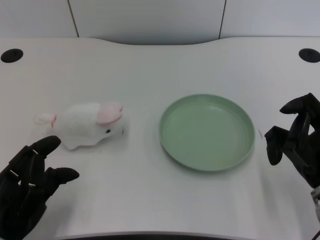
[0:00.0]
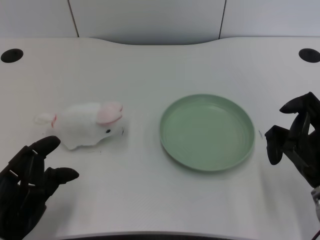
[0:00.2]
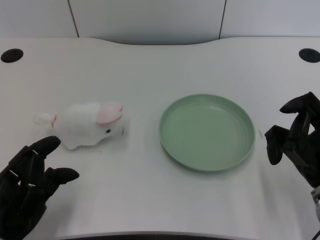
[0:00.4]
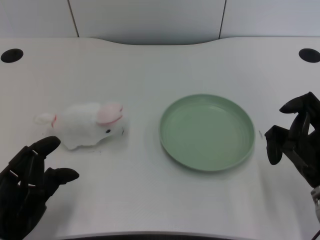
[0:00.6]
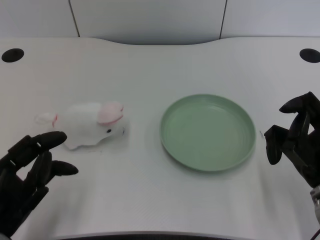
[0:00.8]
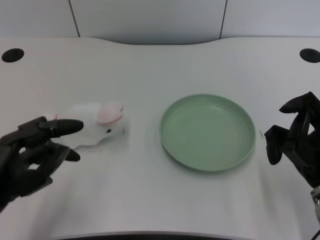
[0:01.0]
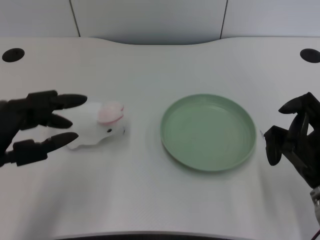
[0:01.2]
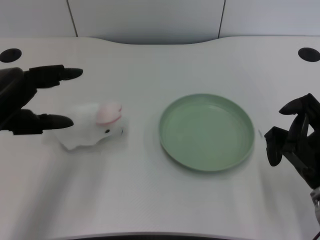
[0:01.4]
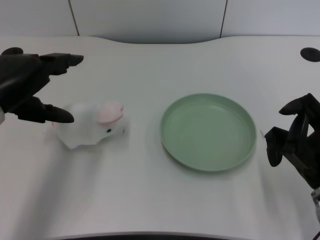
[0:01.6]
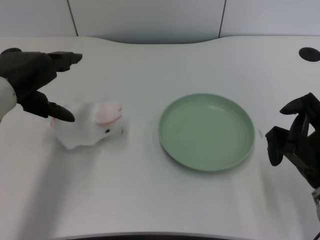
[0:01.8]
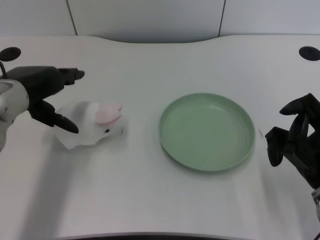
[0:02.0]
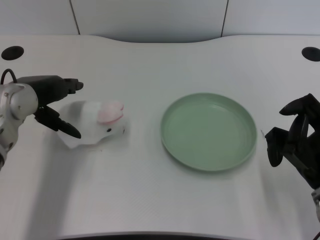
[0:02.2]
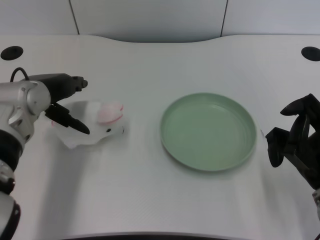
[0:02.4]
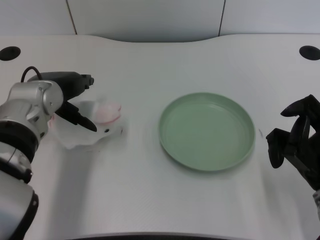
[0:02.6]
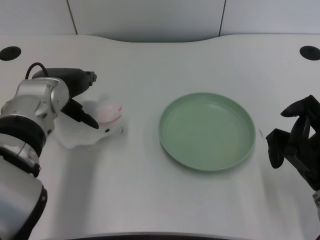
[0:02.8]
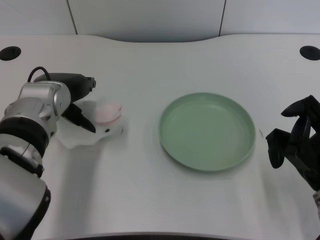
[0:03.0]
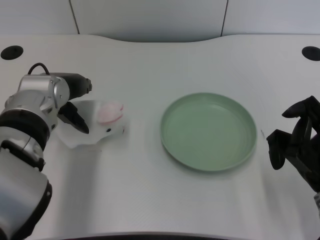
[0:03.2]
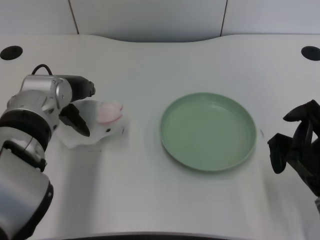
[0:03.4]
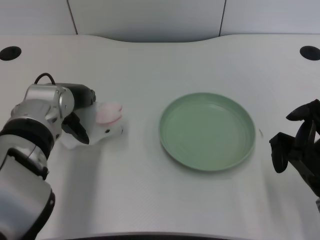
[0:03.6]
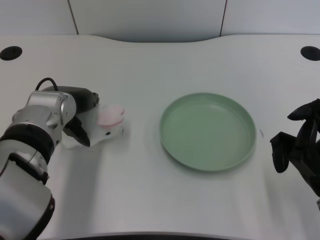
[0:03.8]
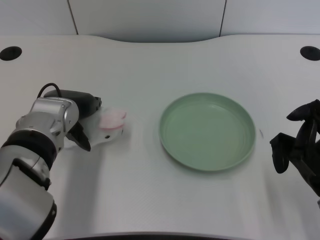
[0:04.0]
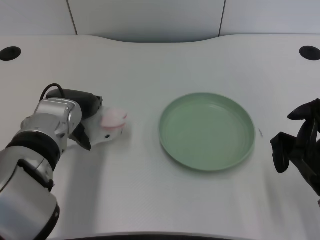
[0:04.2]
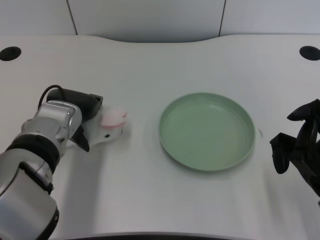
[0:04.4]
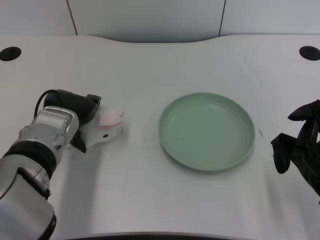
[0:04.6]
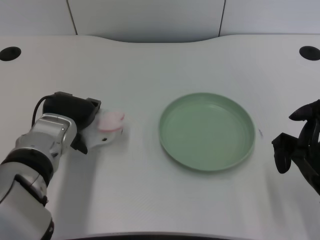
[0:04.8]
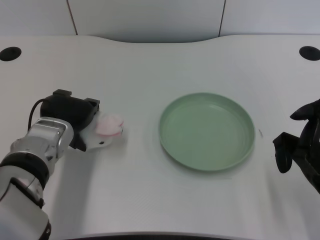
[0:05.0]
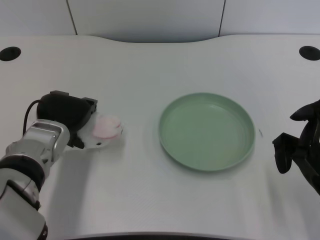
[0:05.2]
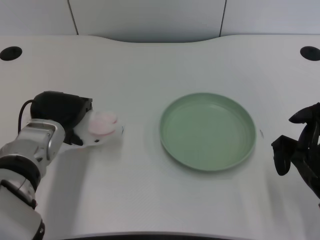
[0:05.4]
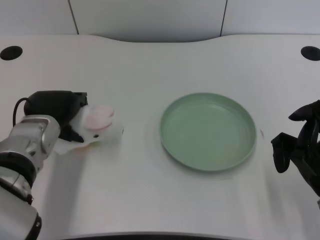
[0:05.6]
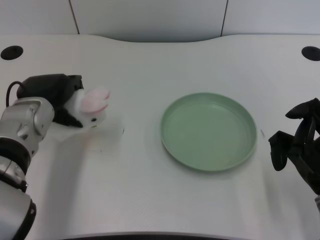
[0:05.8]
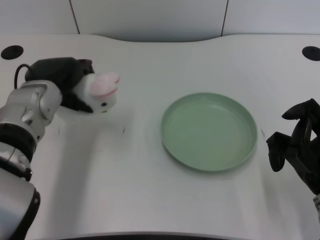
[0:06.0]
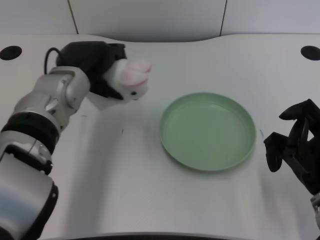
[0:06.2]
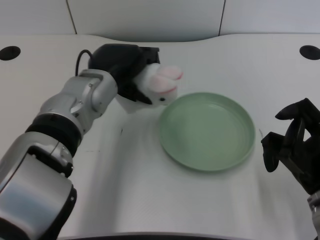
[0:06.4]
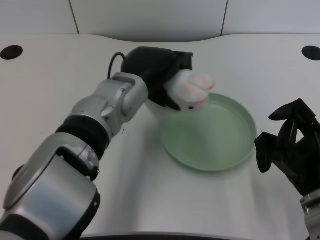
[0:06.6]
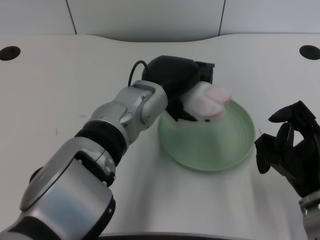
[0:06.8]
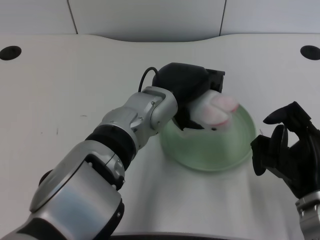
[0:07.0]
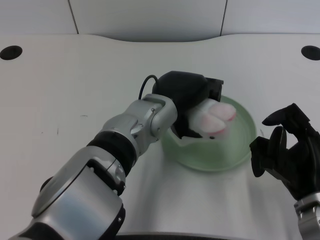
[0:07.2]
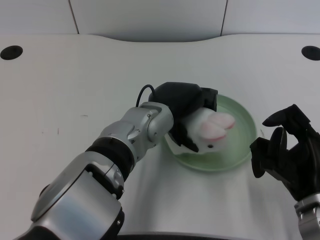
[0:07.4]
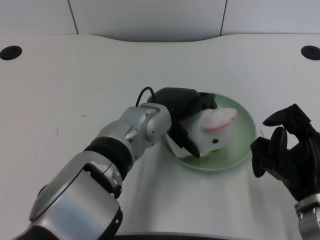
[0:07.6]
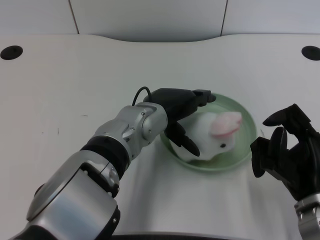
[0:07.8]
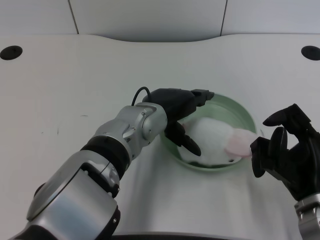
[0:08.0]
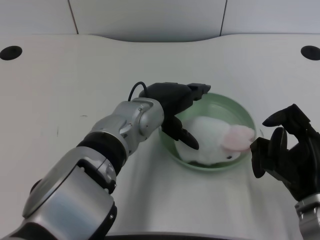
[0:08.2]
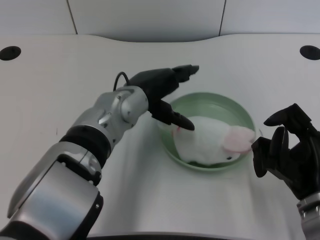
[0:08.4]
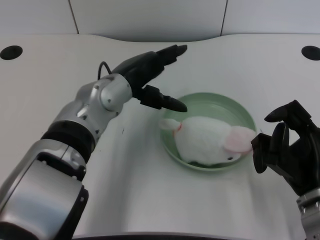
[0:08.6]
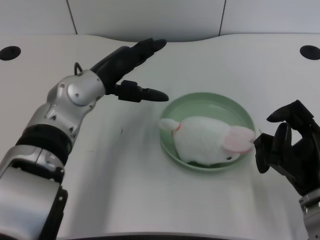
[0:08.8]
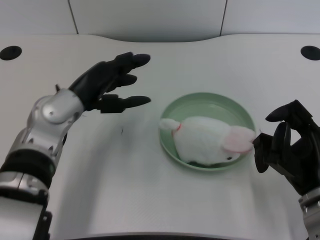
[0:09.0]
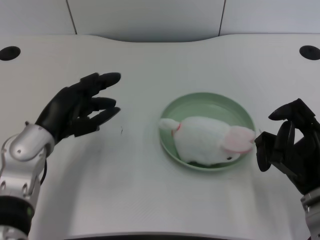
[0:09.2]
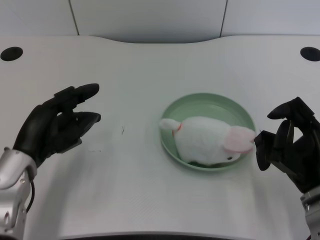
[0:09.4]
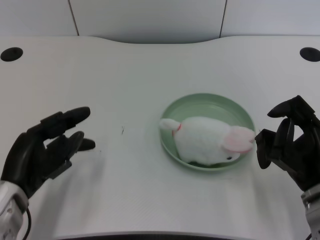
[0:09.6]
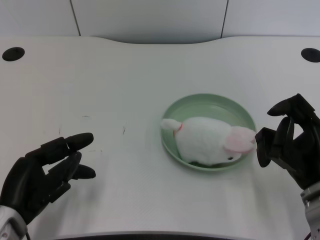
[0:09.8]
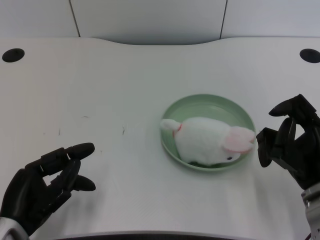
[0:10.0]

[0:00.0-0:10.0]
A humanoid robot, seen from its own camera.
Task of the whole recording: pick up the rabbit doll from the table and place it on the plate.
Step, 0.8 to 5.8 s: Grasp the rabbit doll with the left gripper.
Step, 6.0 to 8.0 s: Place the rabbit doll into the plate with the left gripper.
1.4 to 2.8 s: The left hand travels forward and to the right by some 15 cm.
2.8 to 4.2 s: The hands stay close to where they were, moving slightly.
5.8 to 7.2 s: The left hand heads to the right, covering about 15 cm.
7.2 to 8.6 s: The left hand is displaced to the left by about 5 cm.
8.6 to 10.0 s: The left hand is displaced backward, to the left and downward by about 25 cm.

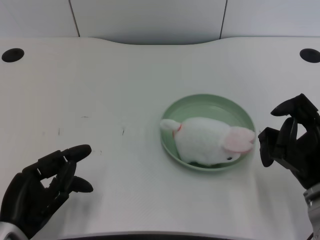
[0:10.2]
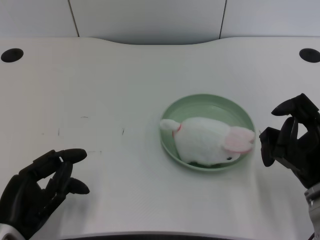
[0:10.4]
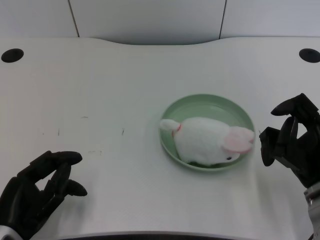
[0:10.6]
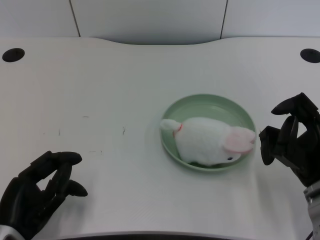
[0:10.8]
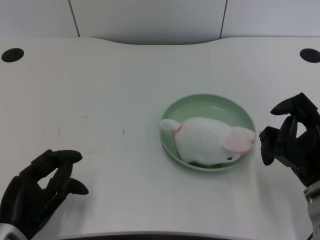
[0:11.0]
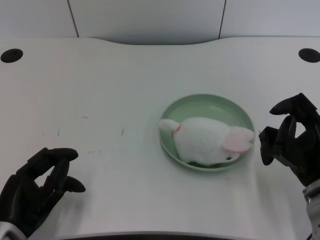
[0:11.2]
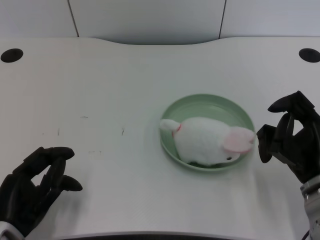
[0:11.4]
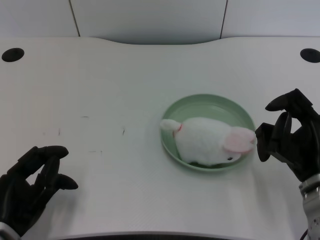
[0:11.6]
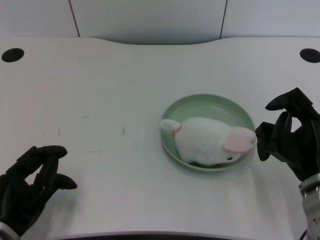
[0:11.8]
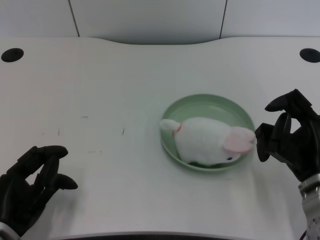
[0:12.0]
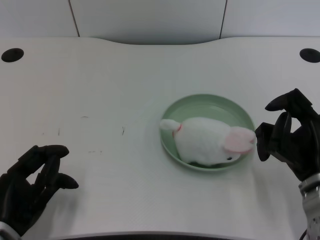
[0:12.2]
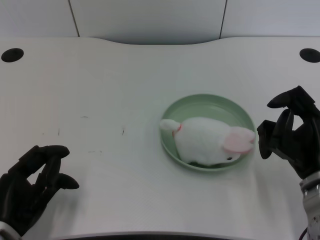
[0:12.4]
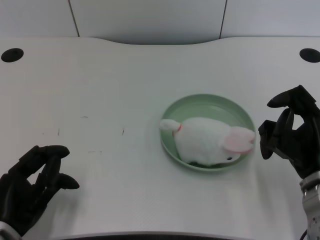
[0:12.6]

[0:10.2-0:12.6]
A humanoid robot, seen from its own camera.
Task of the whole recording: pick up the rabbit doll from the table and place it on the plate.
10.2 to 12.6 s: There are only small adjustments of the hands.

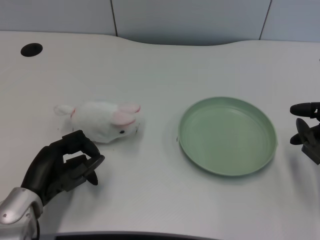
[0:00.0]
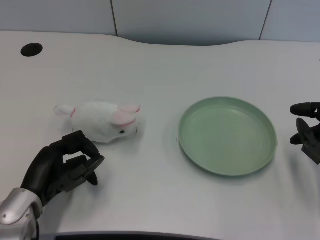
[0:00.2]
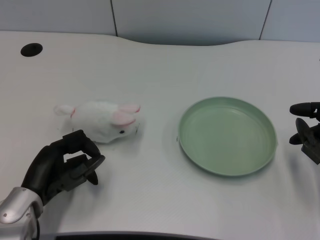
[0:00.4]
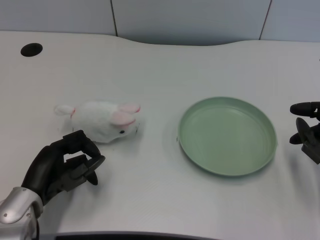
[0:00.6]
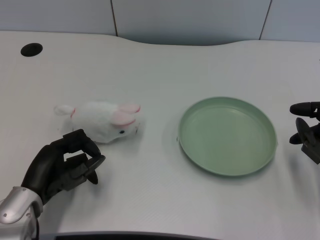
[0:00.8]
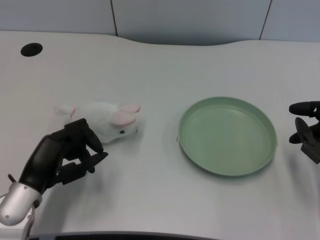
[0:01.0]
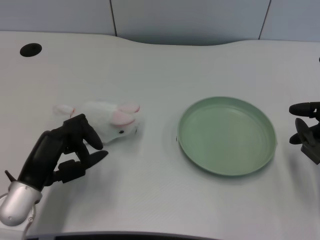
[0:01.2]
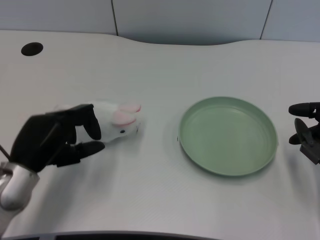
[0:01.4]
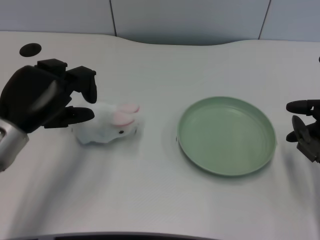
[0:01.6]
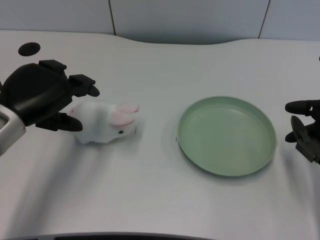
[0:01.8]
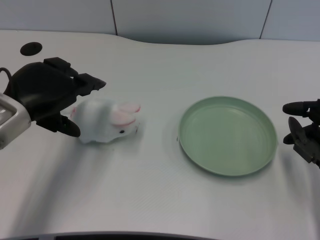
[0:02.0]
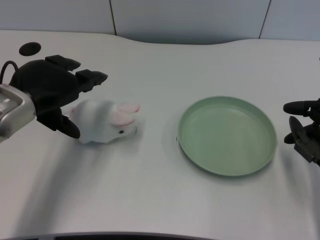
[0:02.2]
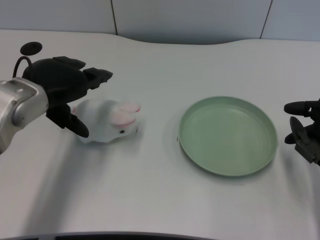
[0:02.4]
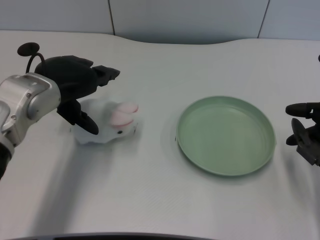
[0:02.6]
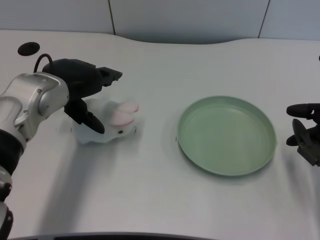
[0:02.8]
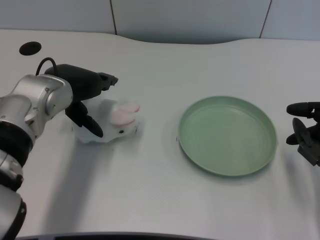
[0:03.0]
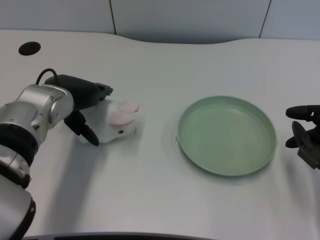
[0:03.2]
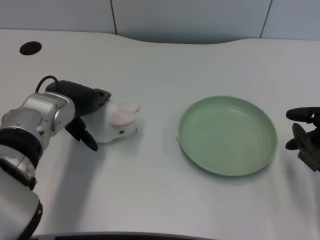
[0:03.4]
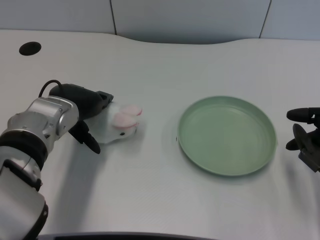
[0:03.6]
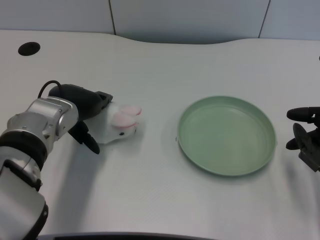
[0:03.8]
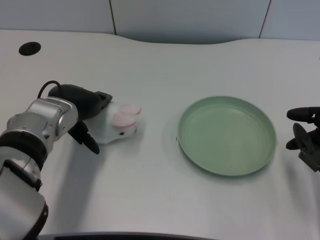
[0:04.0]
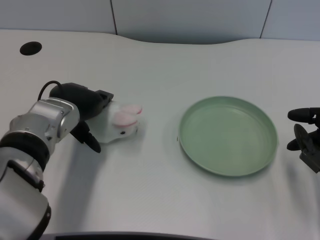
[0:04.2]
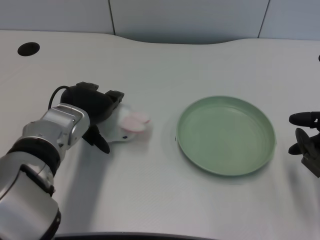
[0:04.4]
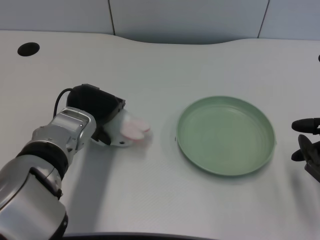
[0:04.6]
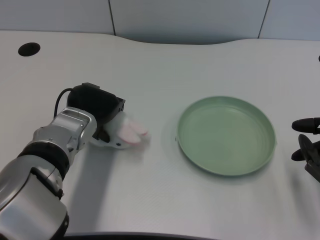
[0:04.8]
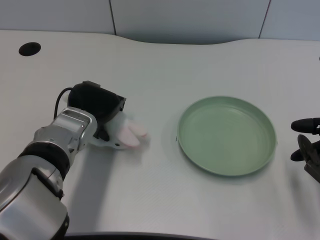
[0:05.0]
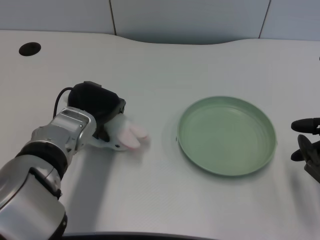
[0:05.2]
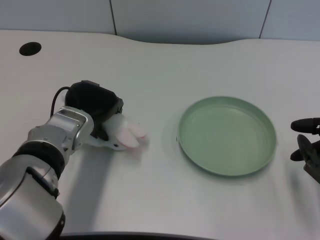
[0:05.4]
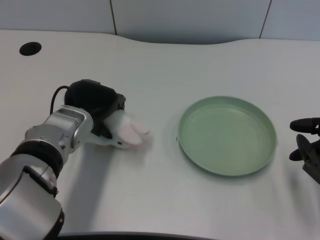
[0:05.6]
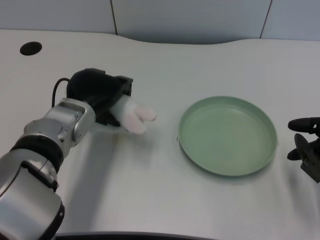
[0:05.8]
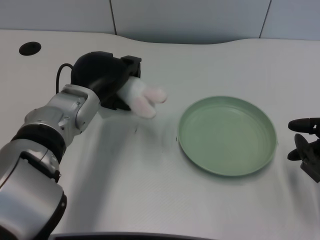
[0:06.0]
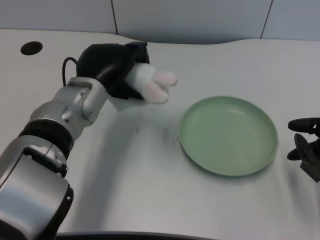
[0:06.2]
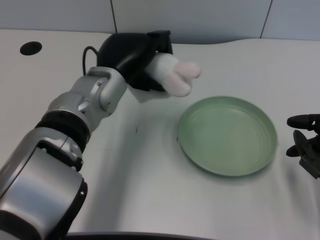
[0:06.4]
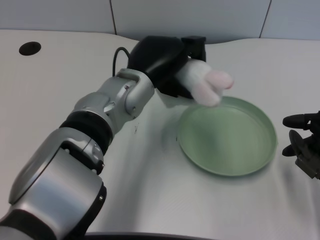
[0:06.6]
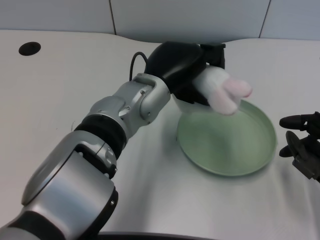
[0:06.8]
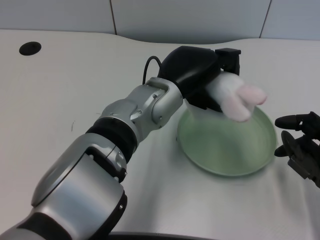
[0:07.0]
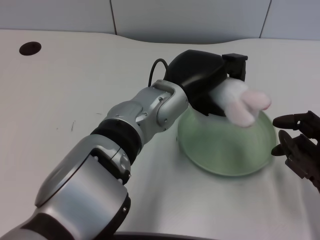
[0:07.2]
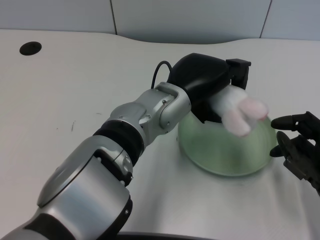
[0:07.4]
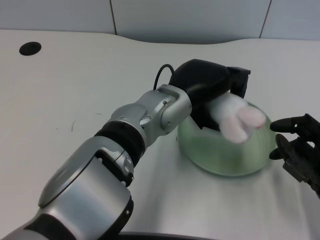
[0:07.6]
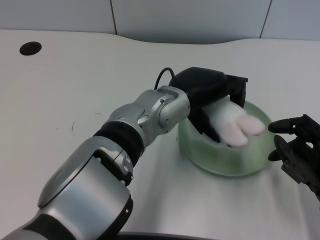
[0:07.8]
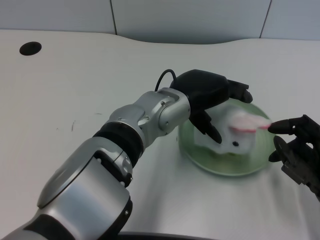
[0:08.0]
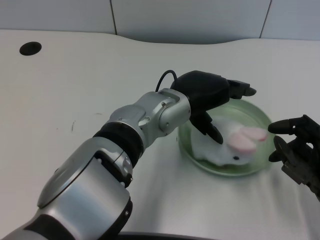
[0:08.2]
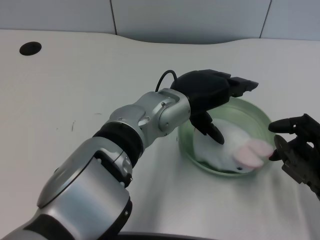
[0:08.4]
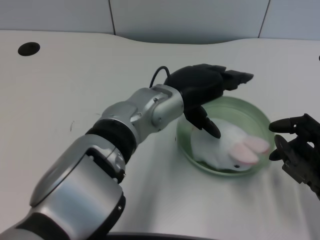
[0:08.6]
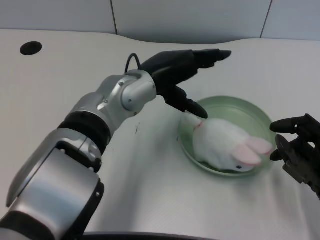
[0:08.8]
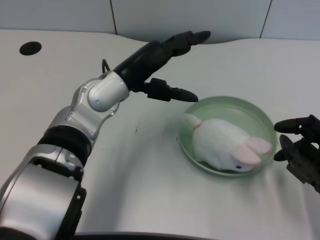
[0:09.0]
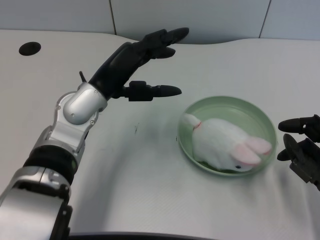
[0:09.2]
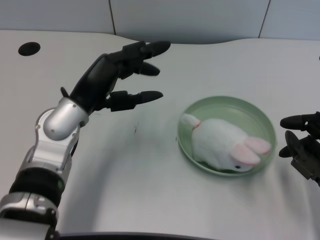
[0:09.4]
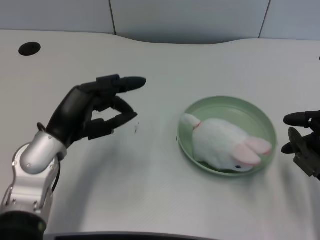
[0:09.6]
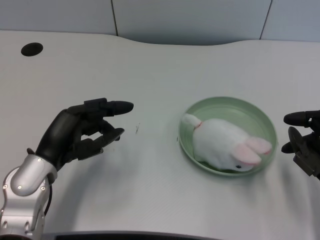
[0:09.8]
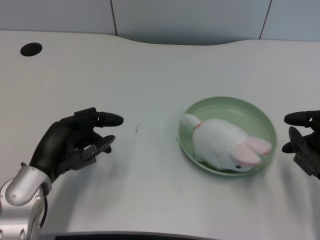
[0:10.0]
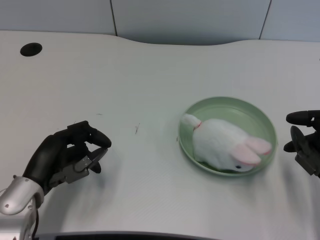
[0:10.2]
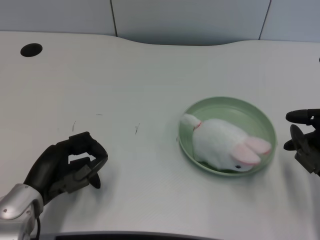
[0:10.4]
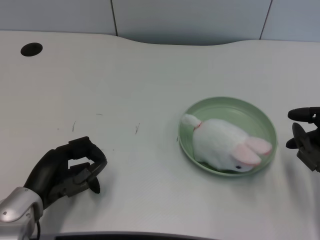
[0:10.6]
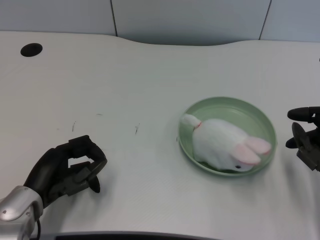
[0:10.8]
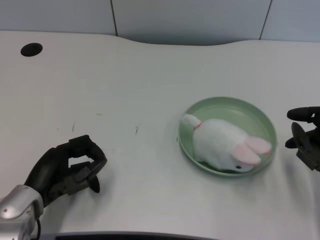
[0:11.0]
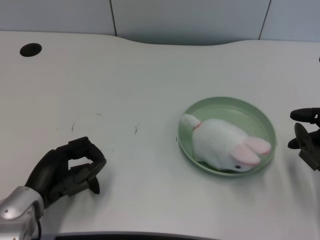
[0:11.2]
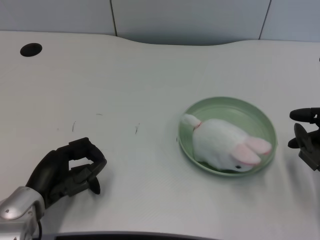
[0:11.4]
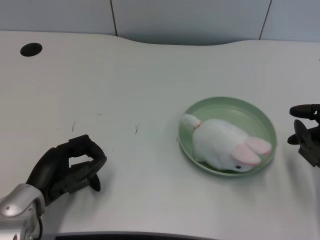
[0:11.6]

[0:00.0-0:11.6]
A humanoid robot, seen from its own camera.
Task of the whole recording: pick up the rabbit doll from the table and place it on the plate.
Step, 1.0 to 5.6 s: Grasp the rabbit doll with the left gripper.
Step, 6.0 to 8.2 s: Place the rabbit doll into the plate with the left gripper.
1.4 to 2.8 s: The left hand moves forward, upward and to the right, some 15 cm.
2.8 to 4.4 s: The left hand heads downward, covering some 5 cm.
4.4 to 5.8 s: The hands move only a little.
5.8 to 7.2 s: The left hand goes some 15 cm to the right.
8.8 to 10.2 s: The left hand heads to the left, downward and backward, covering roughly 20 cm.
10.2 to 11.6 s: There are only small adjustments of the hands.
